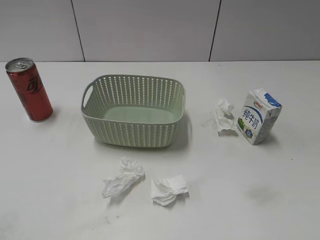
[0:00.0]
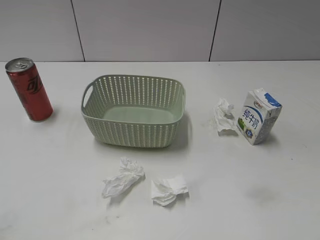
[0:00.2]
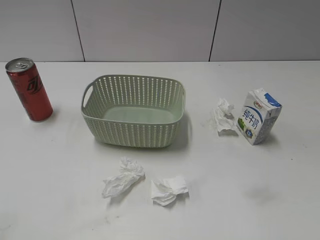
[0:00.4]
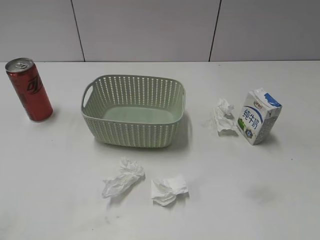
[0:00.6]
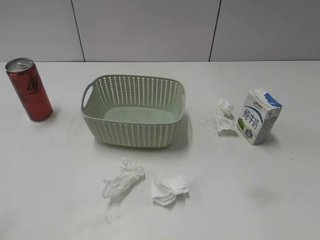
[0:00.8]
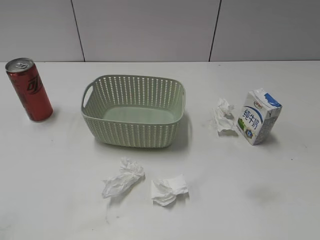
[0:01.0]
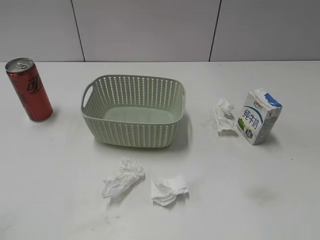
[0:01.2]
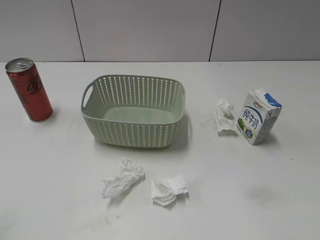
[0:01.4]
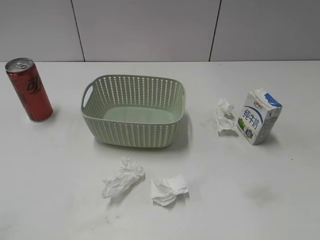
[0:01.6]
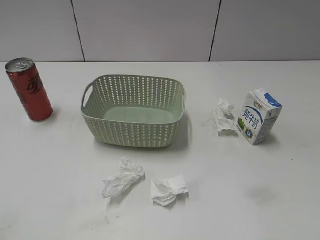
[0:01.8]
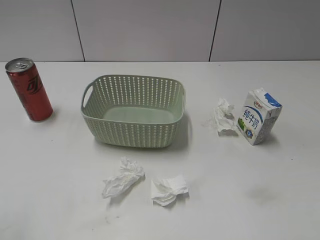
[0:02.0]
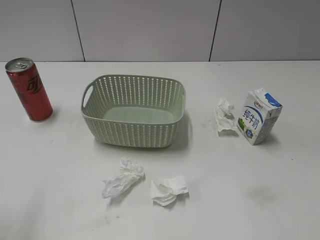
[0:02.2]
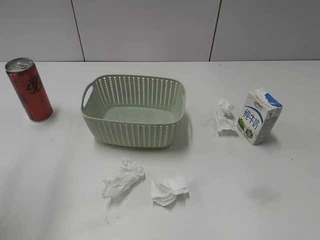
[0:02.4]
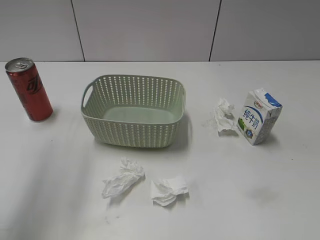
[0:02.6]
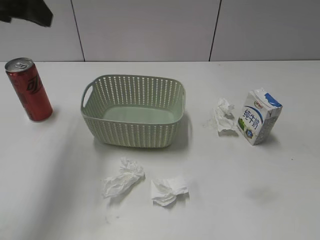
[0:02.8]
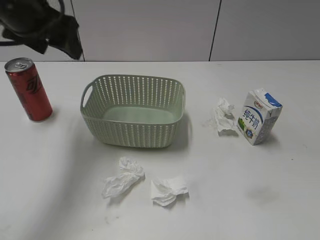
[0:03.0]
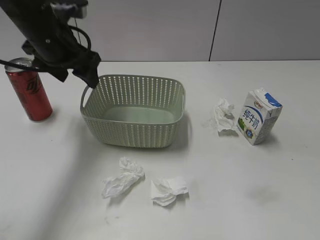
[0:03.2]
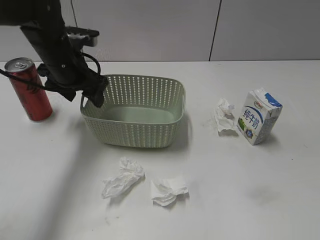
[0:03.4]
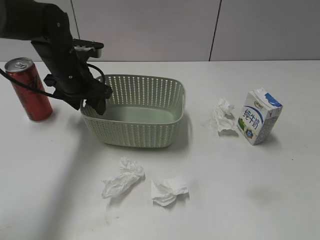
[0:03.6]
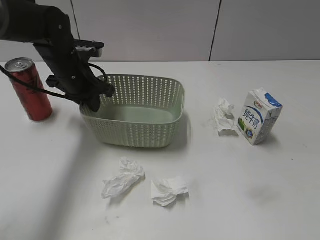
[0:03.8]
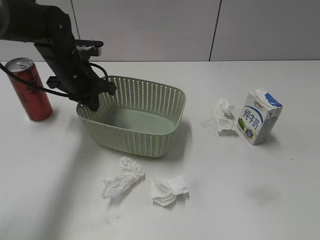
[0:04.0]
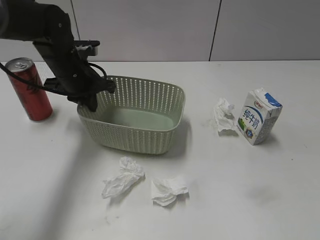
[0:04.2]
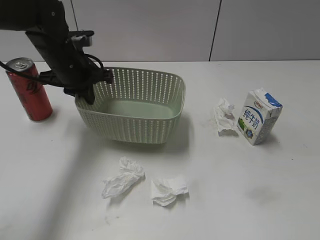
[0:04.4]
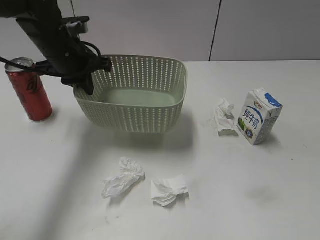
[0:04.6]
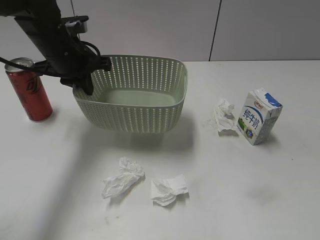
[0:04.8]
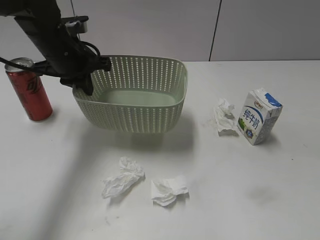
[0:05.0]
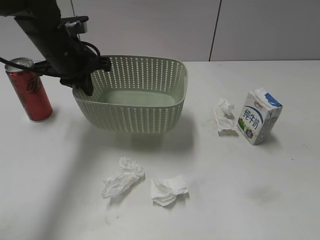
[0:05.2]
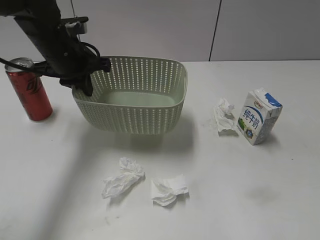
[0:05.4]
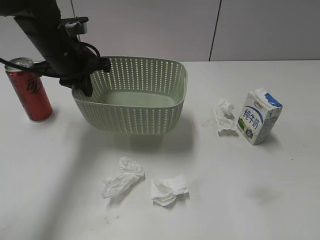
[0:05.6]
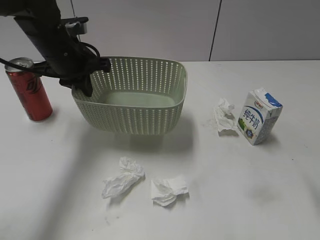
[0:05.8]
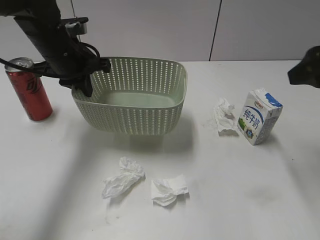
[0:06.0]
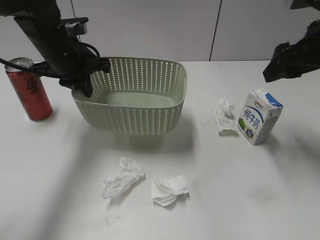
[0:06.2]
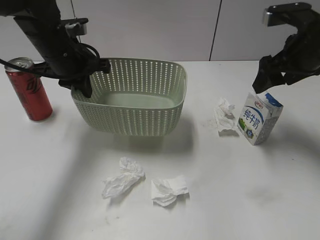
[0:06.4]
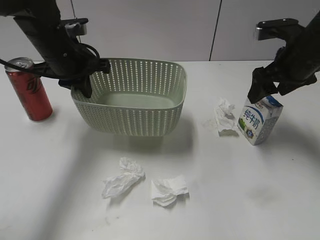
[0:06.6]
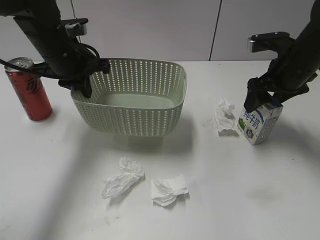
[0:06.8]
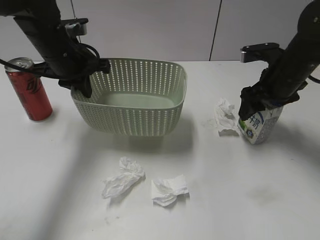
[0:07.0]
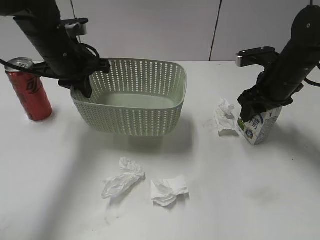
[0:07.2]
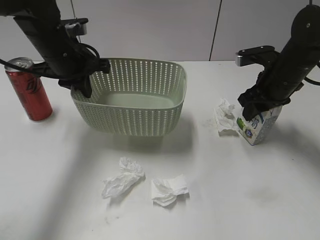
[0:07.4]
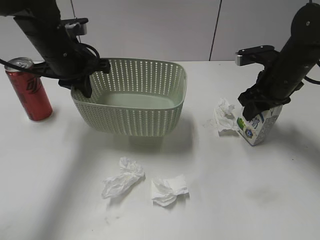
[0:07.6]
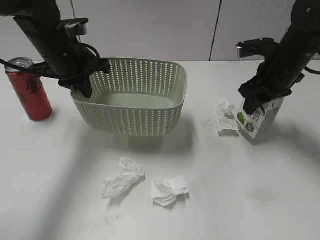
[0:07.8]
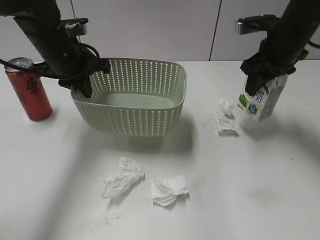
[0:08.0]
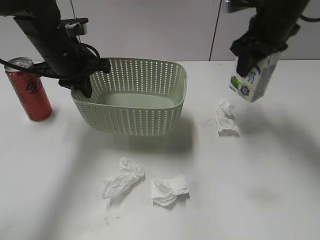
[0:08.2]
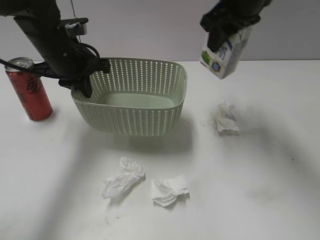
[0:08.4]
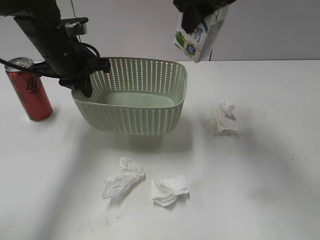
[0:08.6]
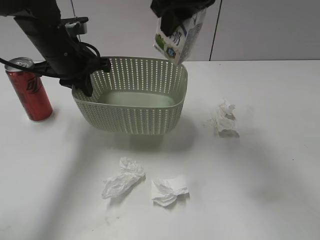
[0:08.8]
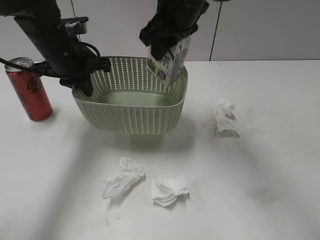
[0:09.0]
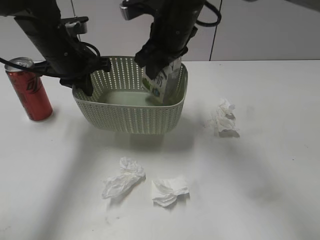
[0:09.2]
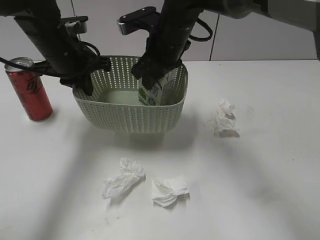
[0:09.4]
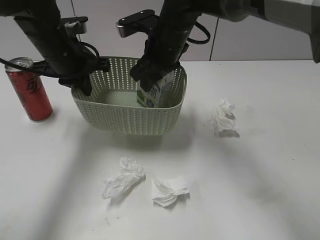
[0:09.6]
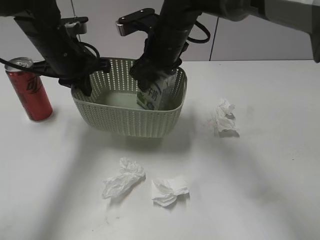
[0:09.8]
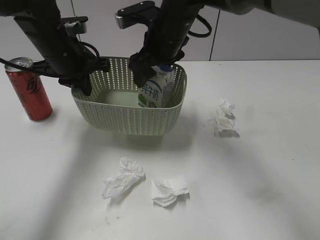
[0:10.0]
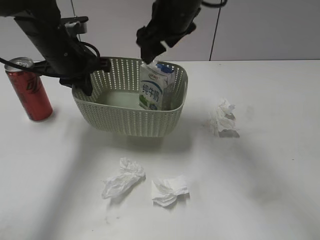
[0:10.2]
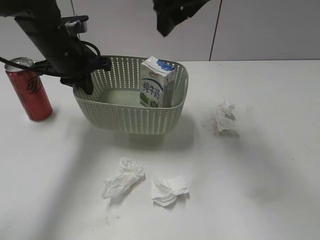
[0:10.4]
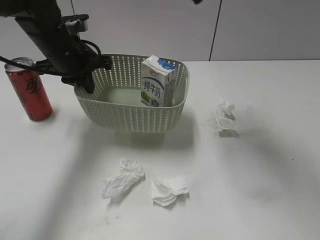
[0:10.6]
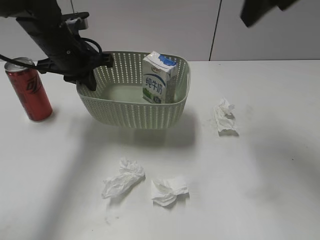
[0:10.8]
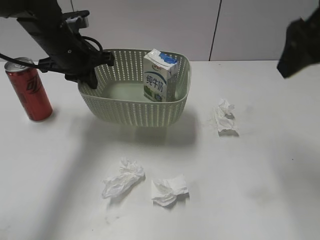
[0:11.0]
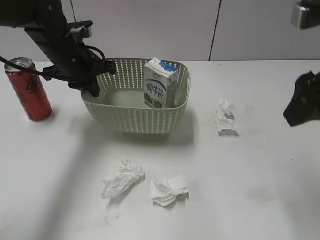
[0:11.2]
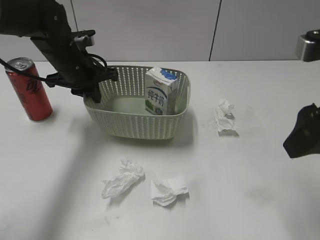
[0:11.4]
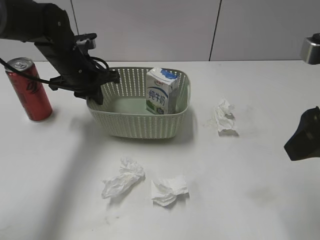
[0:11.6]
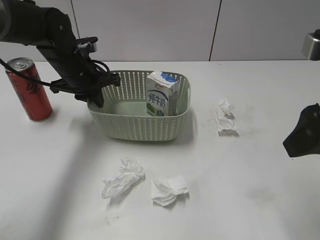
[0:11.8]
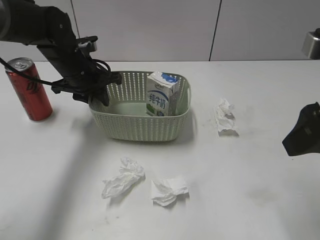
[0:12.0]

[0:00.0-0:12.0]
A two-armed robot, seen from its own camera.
Step, 0:02.8 to 0:03.8: Grasp the basket with left gripper.
Step, 0:04.0 to 0:04.6: Lift the basket with left gripper.
Step, 0:04.8 to 0:07.4: Grasp the milk with right gripper.
Step, 0:07.6 to 0:10.2: Place the milk in the basket with right gripper.
0:01.6 to 0:03.0: The left gripper travels forward by some 30 cm, and opens its fingers.
0:03.0 to 0:04.4: The left gripper heads downward and forward, covering approximately 20 cm, and closes up.
0:04.4 to 0:06.0: The right gripper moves forward, approximately 15 cm. Meanwhile the left gripper changes place by about 5 cm.
0:06.0 to 0:07.6: The right gripper shifts some 25 cm forward and downward, and closes its fingers.
0:07.6 to 0:09.0: The right gripper shifts roughly 25 cm upward and to the left.
0:09.0 to 0:10.4: The right gripper moves downward, approximately 5 cm, and opens up.
0:10.4 to 0:12.0: The right gripper goes approximately 30 cm backward and to the right, while the left gripper heads downward, covering about 5 cm.

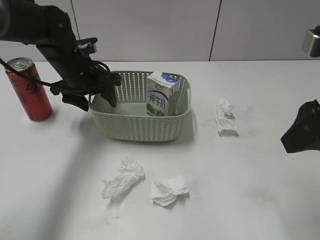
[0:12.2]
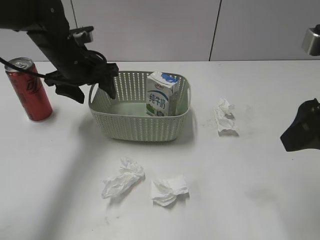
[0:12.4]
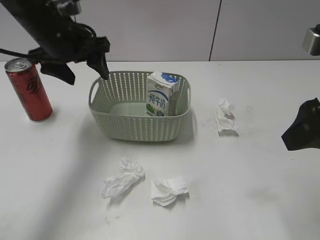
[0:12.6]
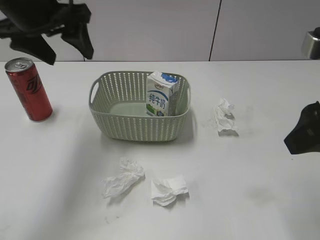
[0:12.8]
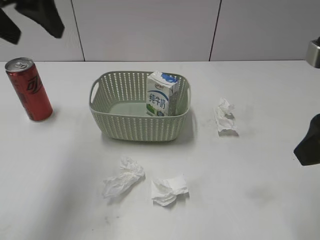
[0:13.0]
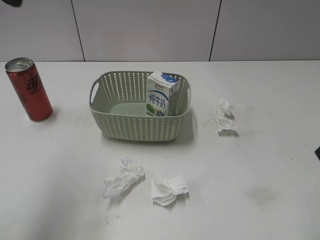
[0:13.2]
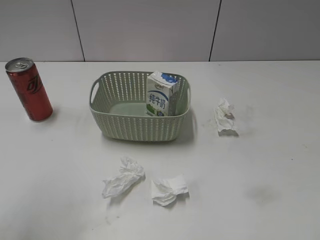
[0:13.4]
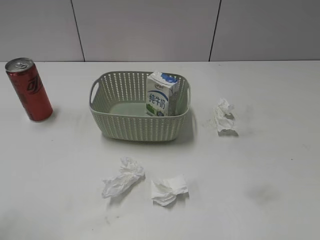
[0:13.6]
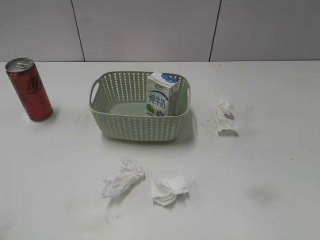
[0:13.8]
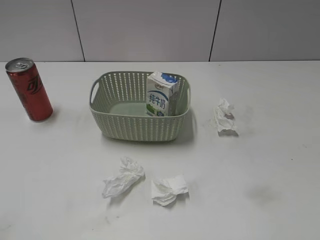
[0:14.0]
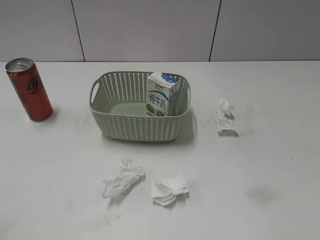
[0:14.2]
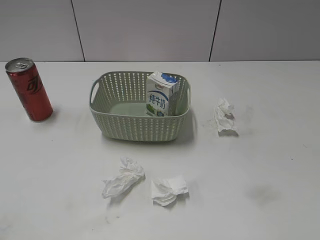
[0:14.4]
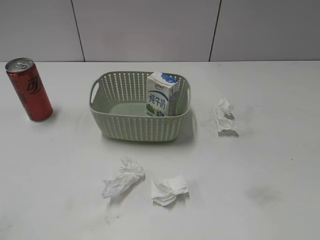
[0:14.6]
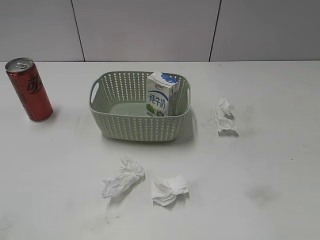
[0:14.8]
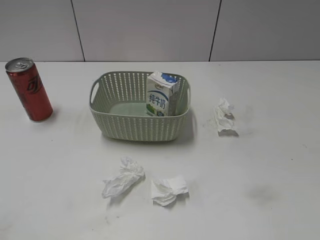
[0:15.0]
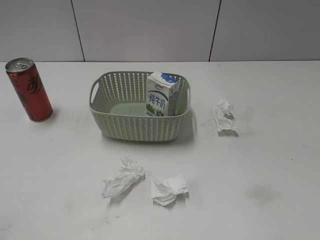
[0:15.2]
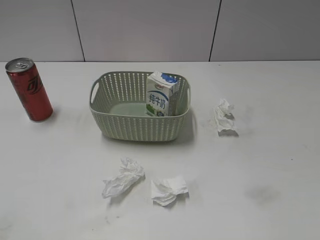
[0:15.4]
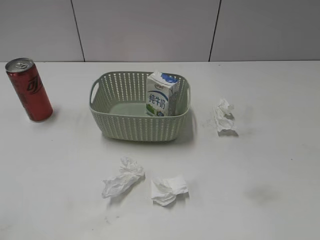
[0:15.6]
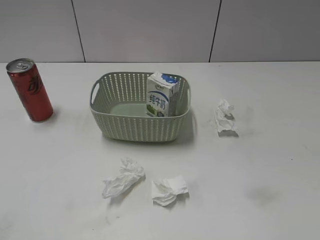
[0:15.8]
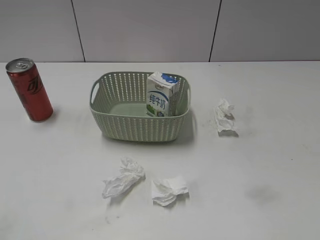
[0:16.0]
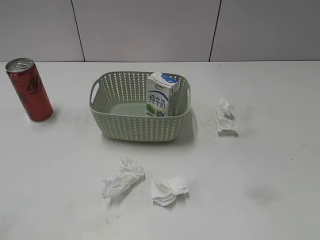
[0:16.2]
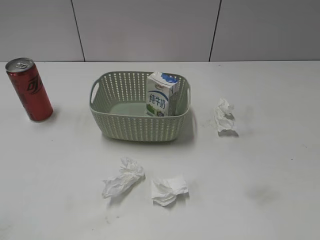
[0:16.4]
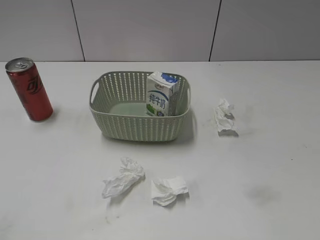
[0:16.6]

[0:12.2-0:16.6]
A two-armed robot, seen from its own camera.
0:12.2 to 0:13.6: The left gripper heads upward and backward, covering roughly 35 cm, and opens its fingers; the right gripper heads backward, covering some 5 cm.

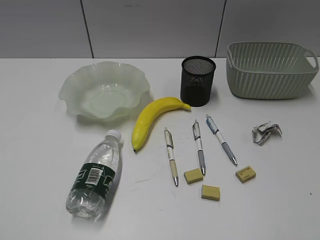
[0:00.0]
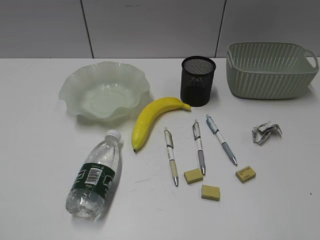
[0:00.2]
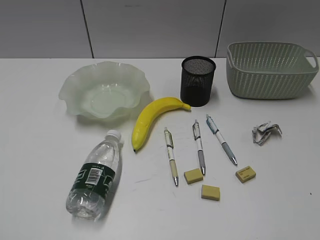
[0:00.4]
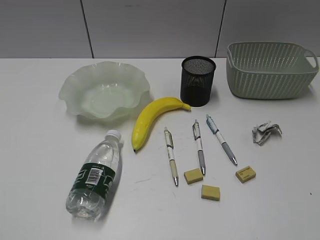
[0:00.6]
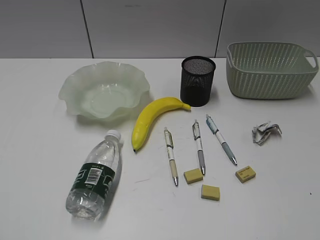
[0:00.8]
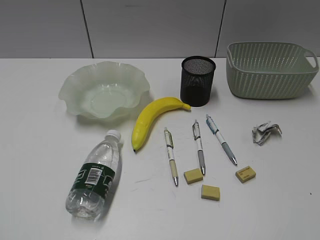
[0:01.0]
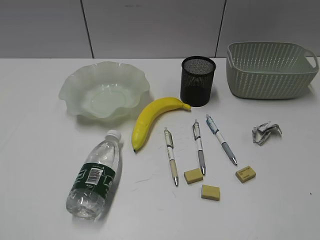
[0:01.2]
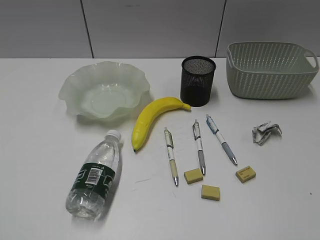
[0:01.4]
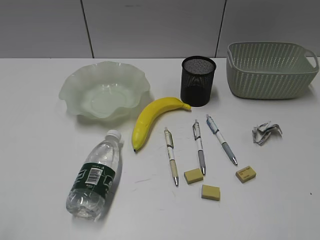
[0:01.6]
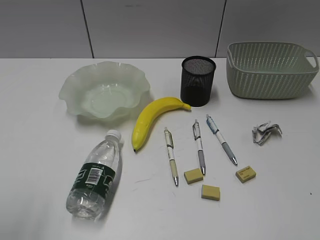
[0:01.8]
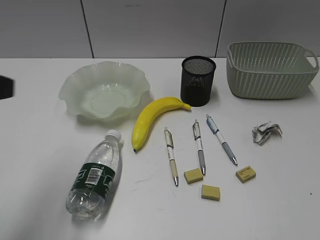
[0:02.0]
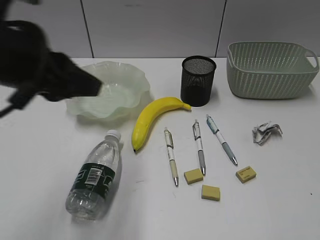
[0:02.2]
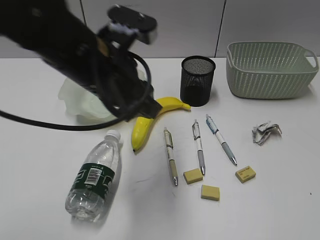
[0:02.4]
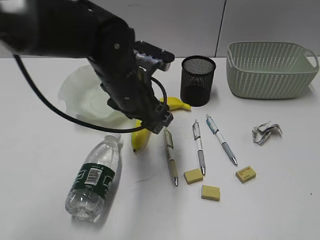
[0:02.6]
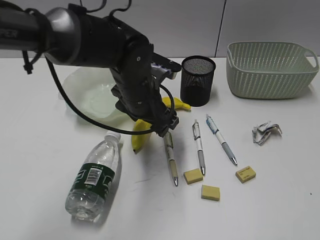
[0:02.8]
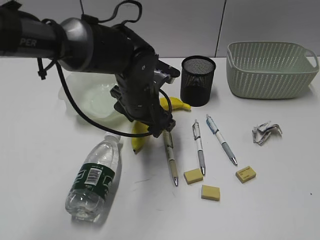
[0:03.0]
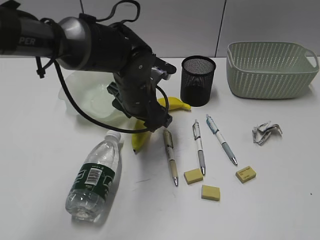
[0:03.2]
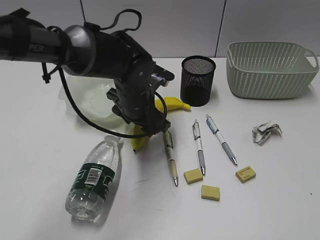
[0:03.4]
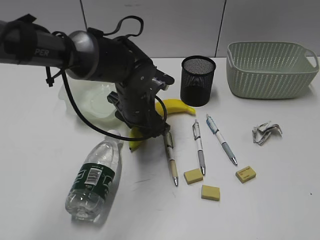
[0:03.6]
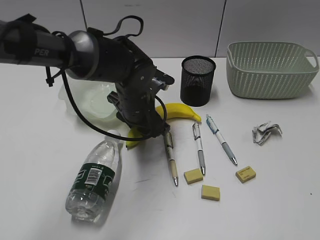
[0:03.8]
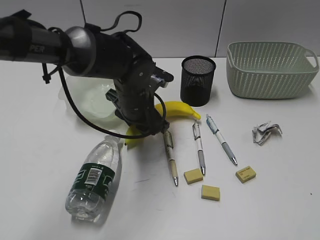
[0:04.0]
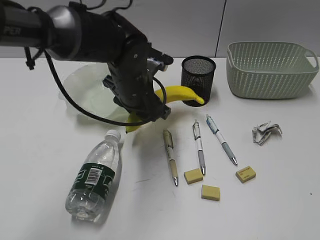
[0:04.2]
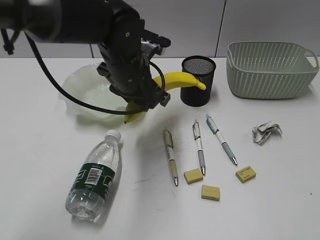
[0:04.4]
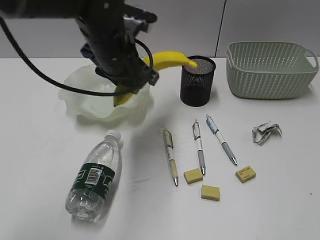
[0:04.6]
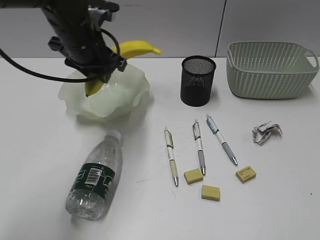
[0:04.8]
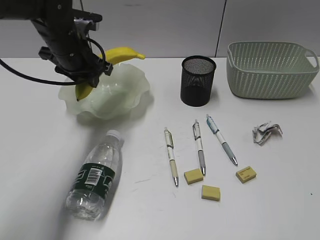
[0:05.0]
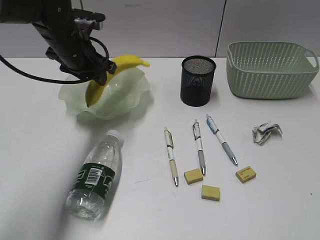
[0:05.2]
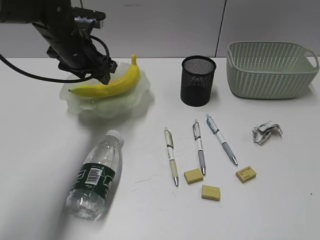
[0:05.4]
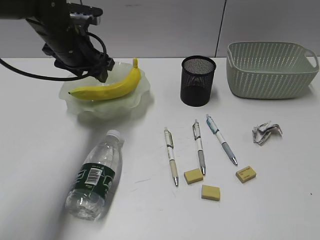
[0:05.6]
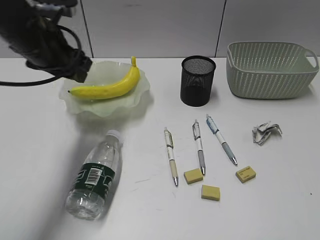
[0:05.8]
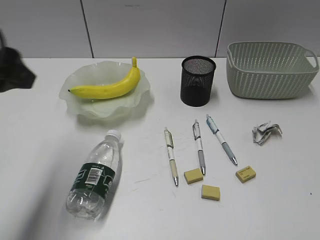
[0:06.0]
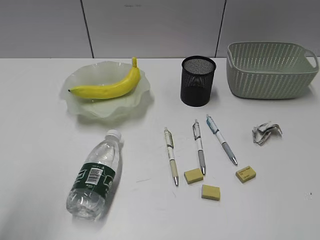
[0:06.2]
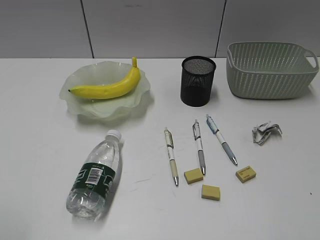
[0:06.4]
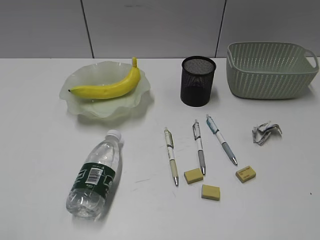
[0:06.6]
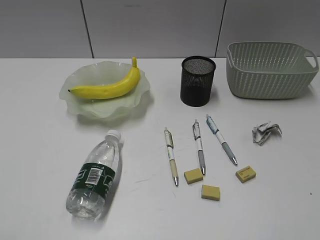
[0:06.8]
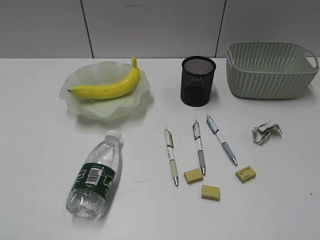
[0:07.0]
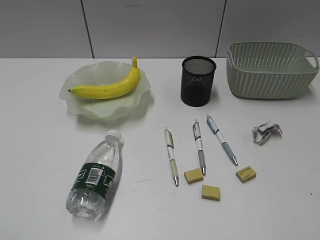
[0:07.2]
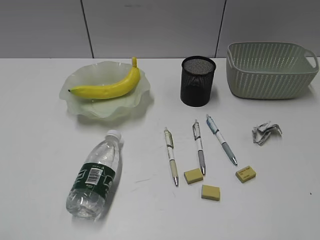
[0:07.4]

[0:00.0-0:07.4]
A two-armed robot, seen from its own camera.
Step, 0:01.4 to 0:03.8: Grasp the banana with left gripper.
Step, 0:04.0 to 0:05.2: Place the banana in the plate with left gripper.
0:01.4 to 0:03.0: The left gripper goes approximately 50 cm forward, to the right and downward, and opens its fingers.
0:03.0 to 0:04.4: The left gripper changes place by about 5 cm, and closes.
0:04.4 to 0:06.0: The left gripper heads to the left, upward and backward, covering some 25 cm.
0:06.0 to 0:07.4: The left gripper shifts about 30 cm backward and to the left.
